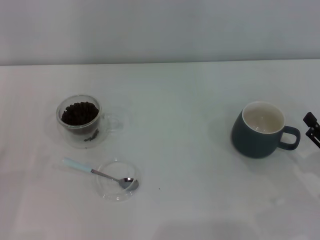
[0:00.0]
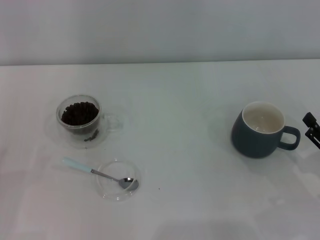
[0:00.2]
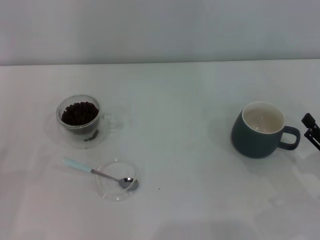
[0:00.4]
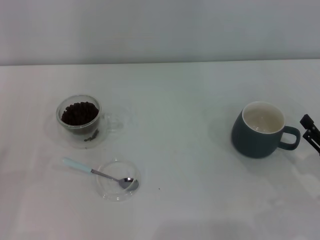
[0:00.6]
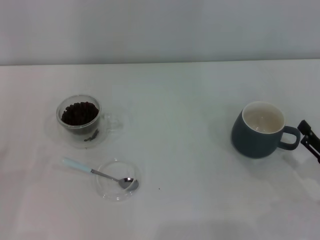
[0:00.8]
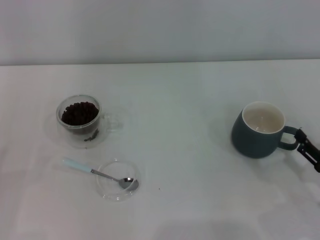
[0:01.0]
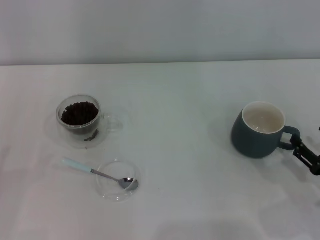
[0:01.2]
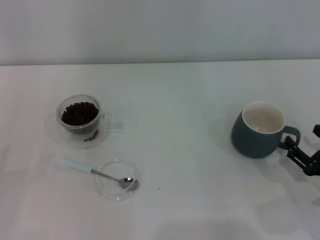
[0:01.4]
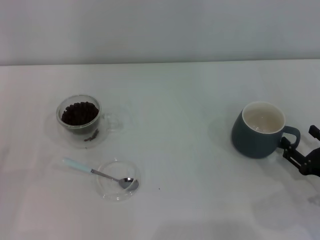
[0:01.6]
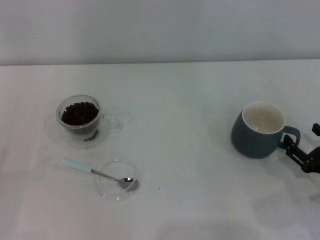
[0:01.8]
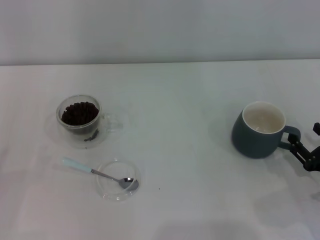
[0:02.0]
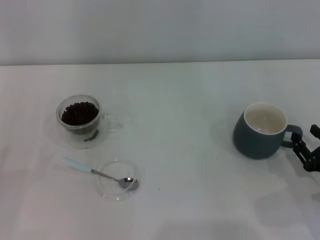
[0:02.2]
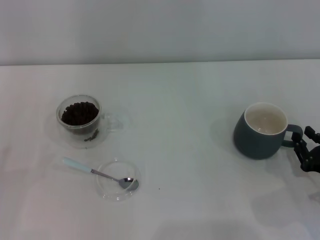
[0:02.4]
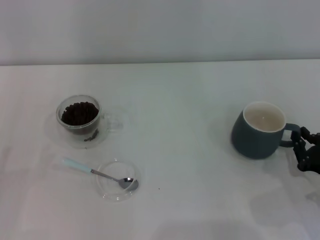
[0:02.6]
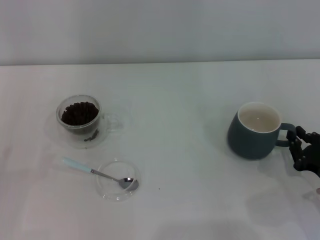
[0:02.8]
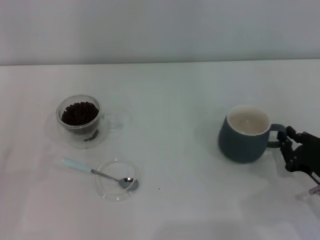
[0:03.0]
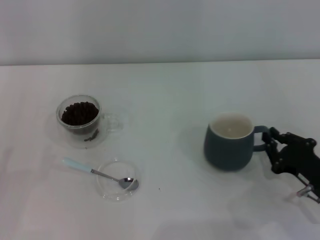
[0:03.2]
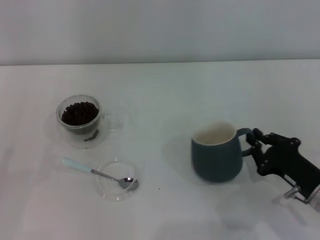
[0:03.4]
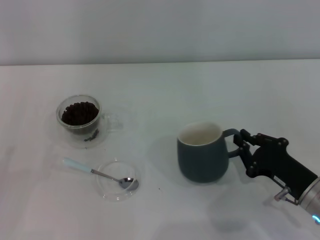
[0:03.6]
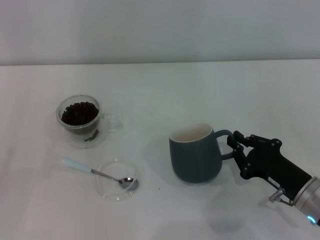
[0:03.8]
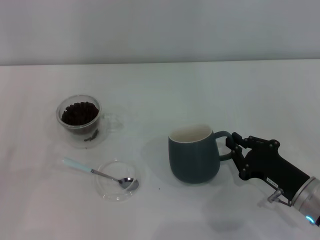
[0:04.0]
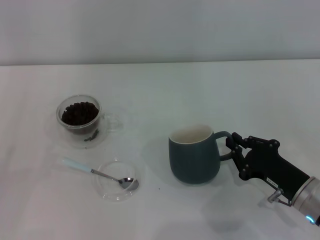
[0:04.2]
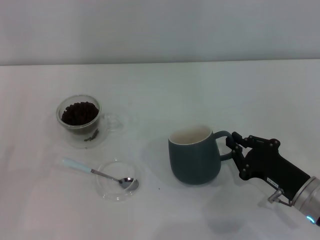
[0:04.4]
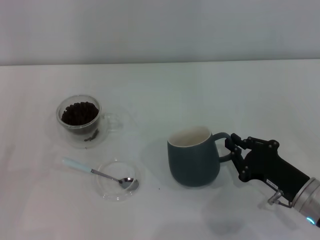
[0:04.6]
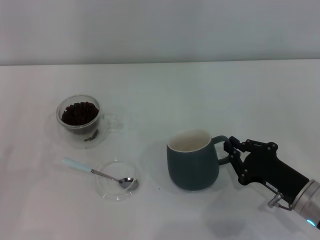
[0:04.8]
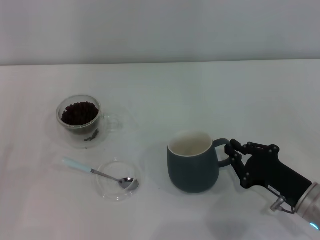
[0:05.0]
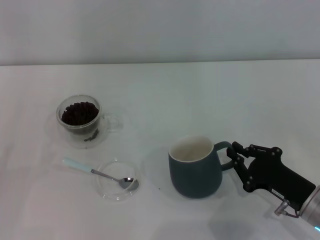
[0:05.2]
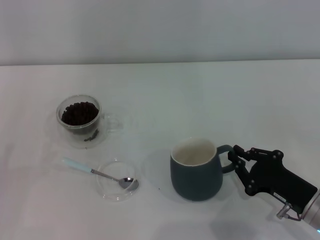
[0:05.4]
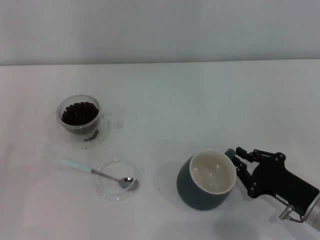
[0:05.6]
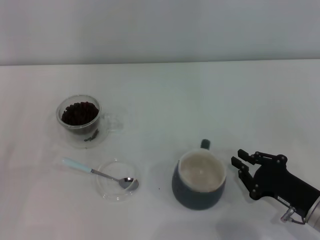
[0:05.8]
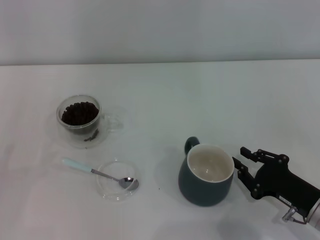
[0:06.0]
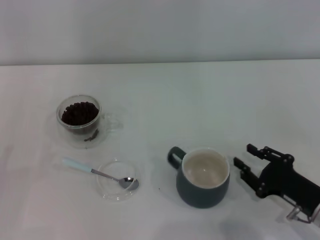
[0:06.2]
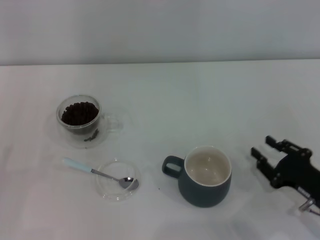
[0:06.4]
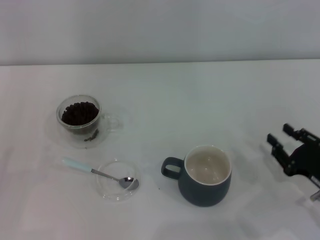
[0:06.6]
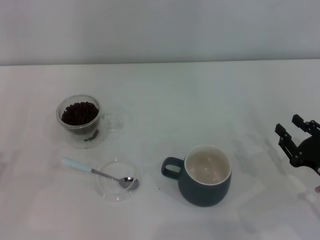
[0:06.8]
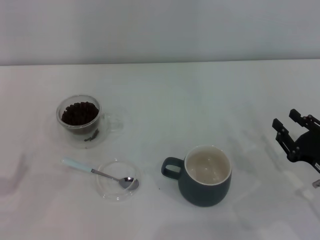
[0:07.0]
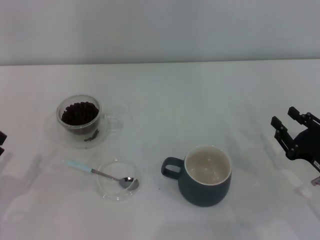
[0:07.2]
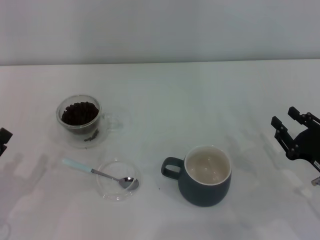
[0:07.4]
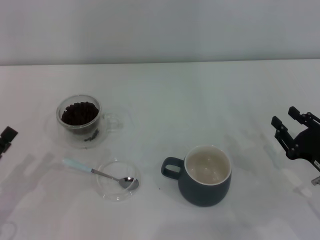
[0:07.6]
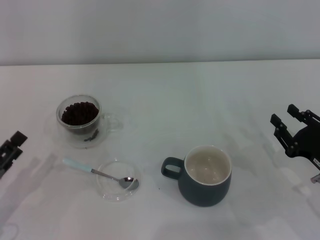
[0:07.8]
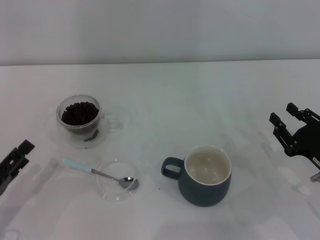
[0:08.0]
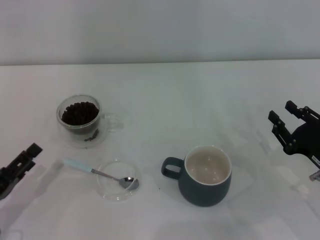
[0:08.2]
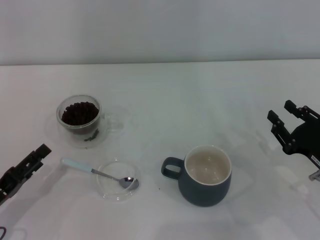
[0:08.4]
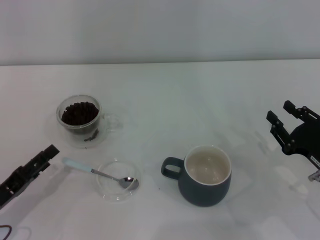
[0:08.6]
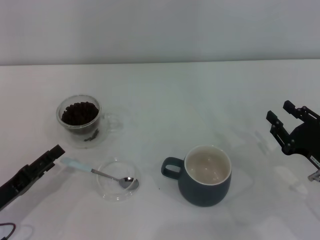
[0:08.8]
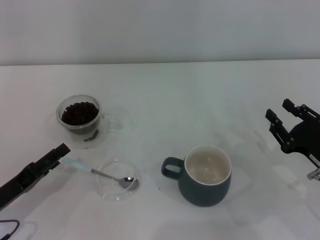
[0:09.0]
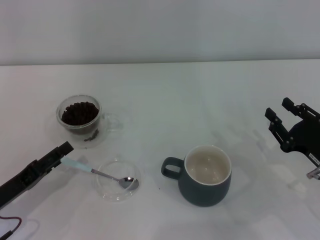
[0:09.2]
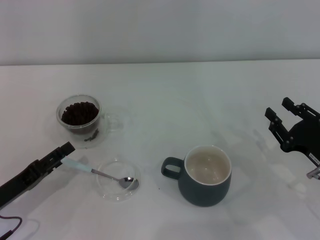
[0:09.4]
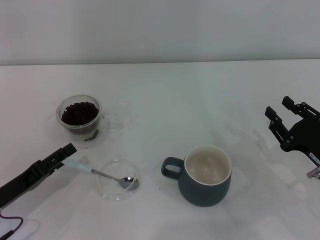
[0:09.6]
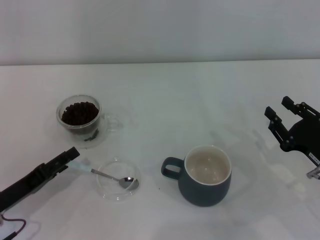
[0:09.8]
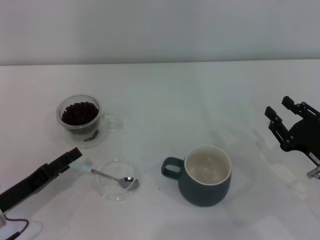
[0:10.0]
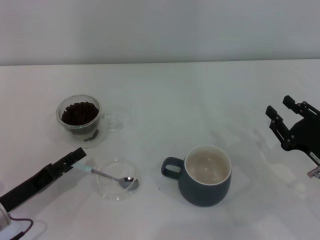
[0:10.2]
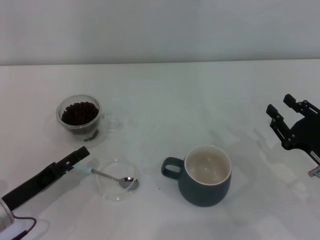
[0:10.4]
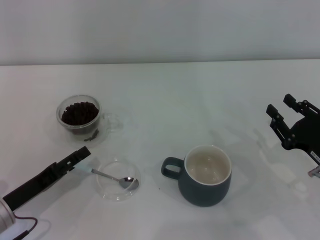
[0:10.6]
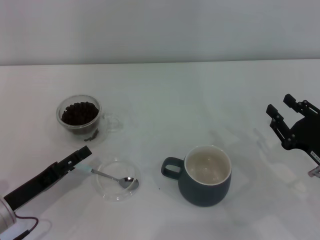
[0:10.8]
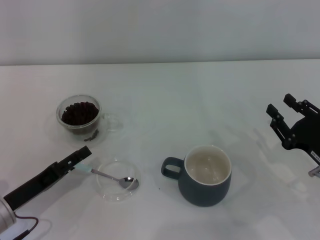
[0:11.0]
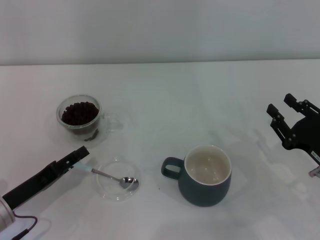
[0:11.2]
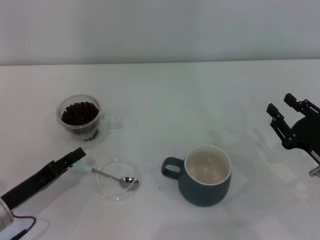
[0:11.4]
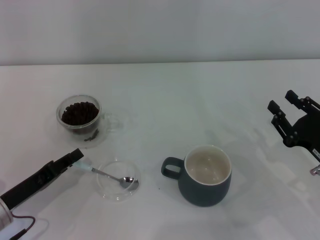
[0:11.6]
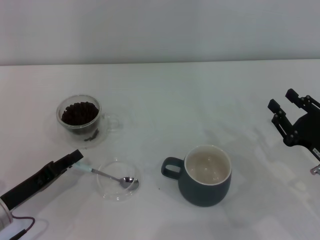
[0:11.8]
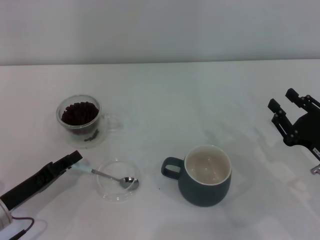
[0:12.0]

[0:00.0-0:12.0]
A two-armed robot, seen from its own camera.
Task of the whole recording: Use a blue spoon to take out the coffee beans from the glass and pour them into the gray cup.
Step, 0:00.0 to 0:06.6: Move the cup to the center of view with the left gripper.
0:00.0 to 0:01.6: The grippers make only small movements.
0:01.6 to 0:03.0: The right gripper closes.
0:03.0 to 0:04.4: The right gripper goes about 5 cm to the left.
0:04.4 to 0:06.0: The grippers move only a little.
0:07.6 to 0:09.0: The grippers make only small movements.
0:09.0 to 0:10.4: The grippers move only a little.
0:10.4 to 0:12.0: The left gripper closes its fingers.

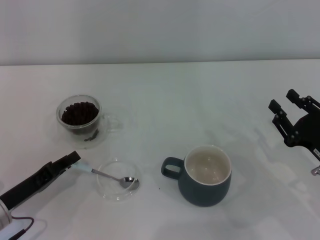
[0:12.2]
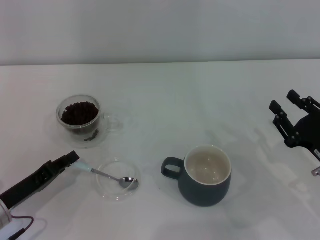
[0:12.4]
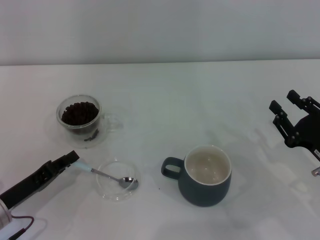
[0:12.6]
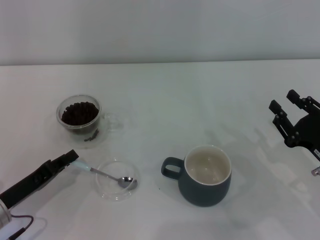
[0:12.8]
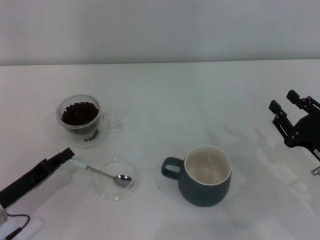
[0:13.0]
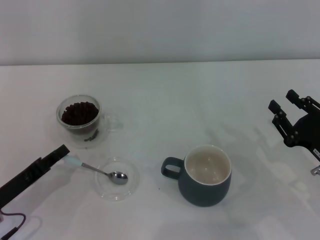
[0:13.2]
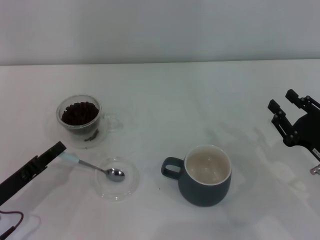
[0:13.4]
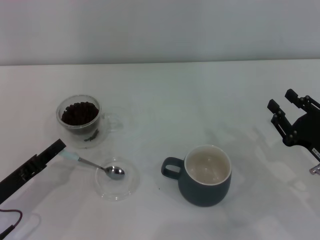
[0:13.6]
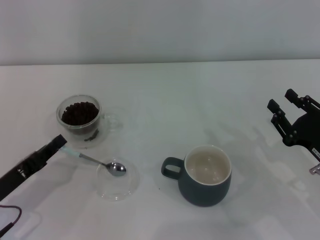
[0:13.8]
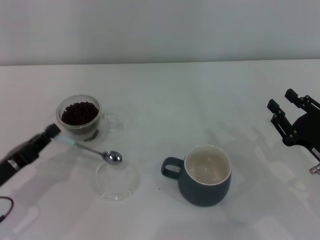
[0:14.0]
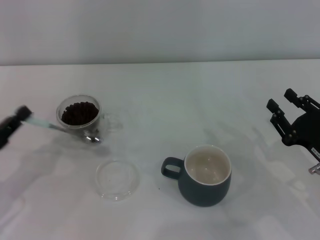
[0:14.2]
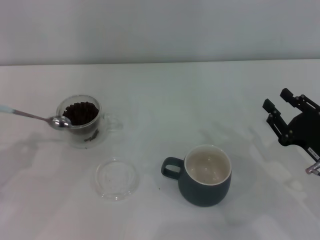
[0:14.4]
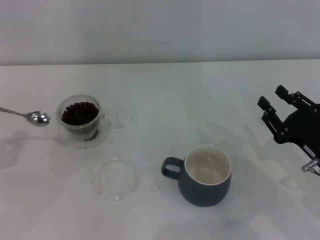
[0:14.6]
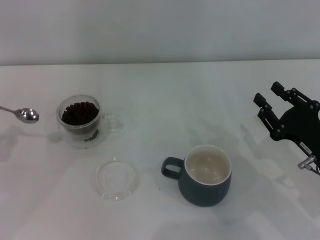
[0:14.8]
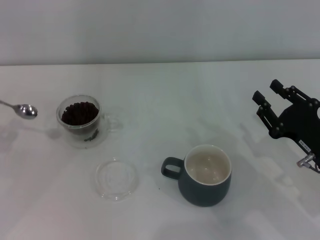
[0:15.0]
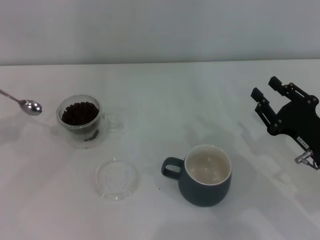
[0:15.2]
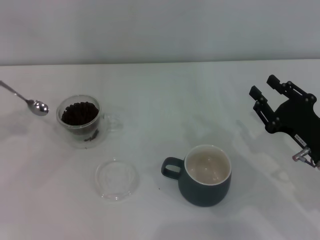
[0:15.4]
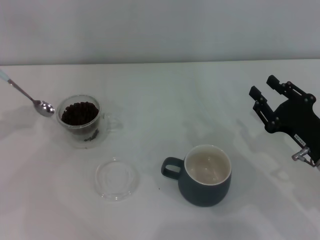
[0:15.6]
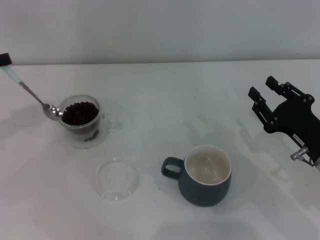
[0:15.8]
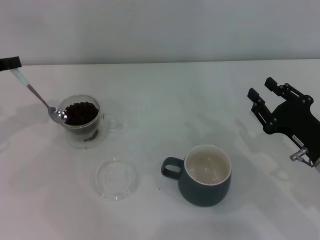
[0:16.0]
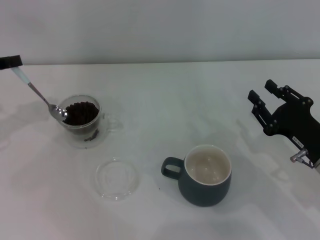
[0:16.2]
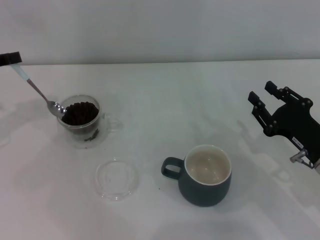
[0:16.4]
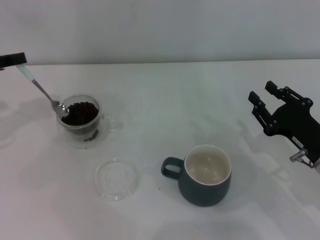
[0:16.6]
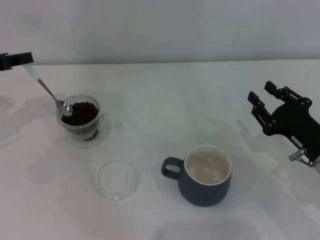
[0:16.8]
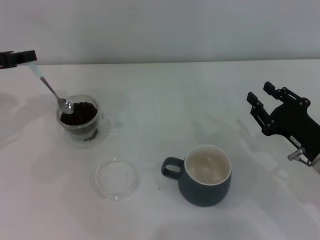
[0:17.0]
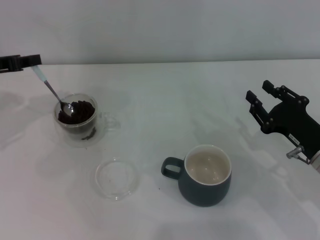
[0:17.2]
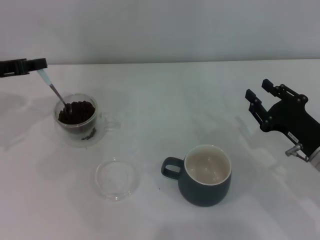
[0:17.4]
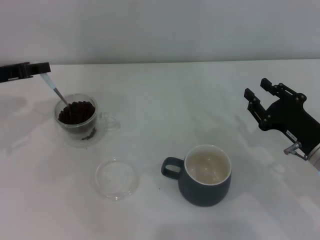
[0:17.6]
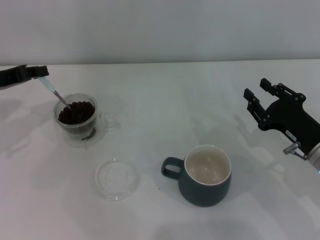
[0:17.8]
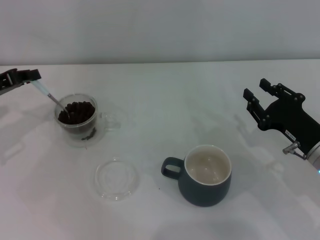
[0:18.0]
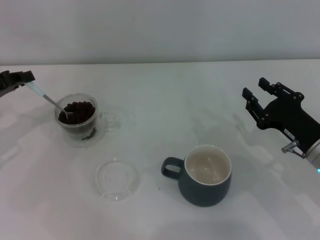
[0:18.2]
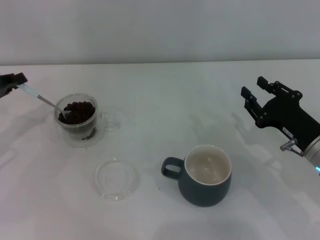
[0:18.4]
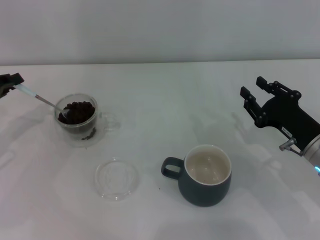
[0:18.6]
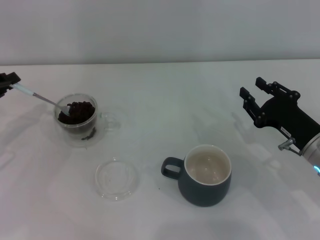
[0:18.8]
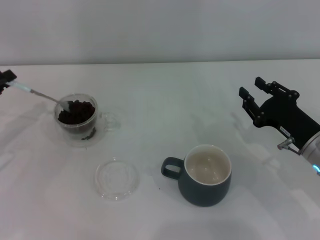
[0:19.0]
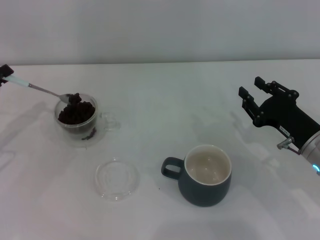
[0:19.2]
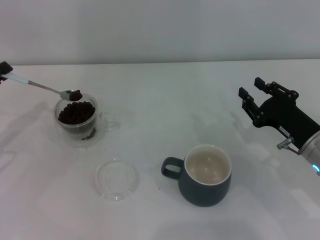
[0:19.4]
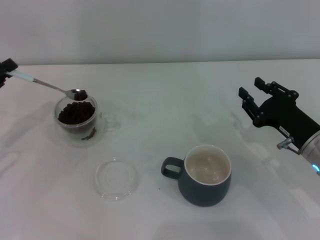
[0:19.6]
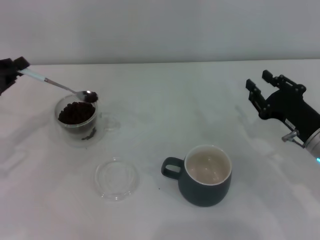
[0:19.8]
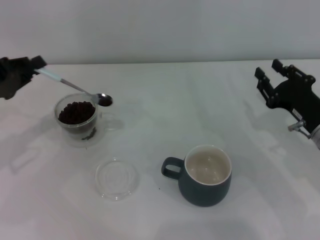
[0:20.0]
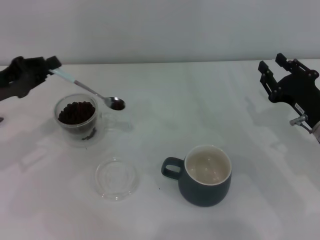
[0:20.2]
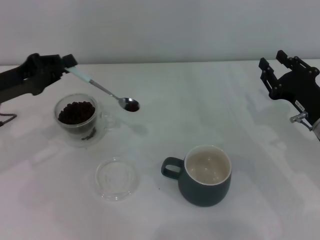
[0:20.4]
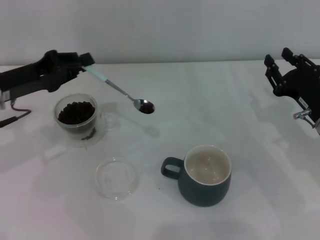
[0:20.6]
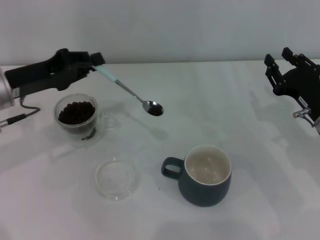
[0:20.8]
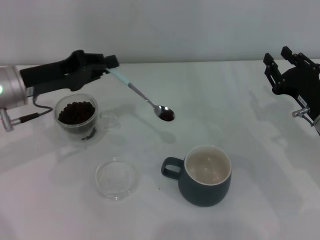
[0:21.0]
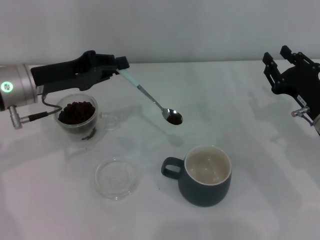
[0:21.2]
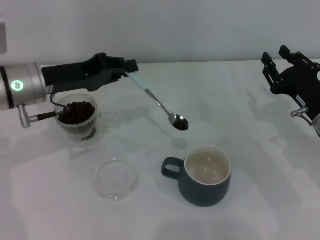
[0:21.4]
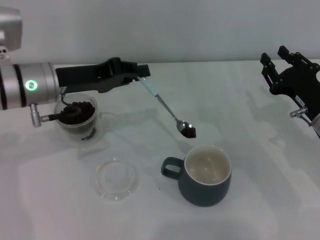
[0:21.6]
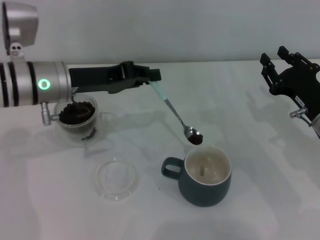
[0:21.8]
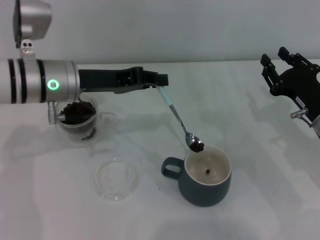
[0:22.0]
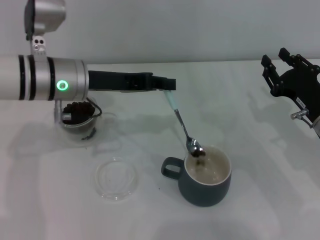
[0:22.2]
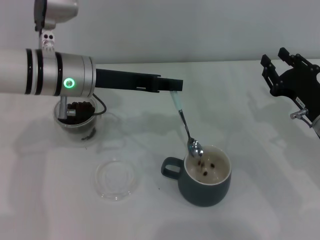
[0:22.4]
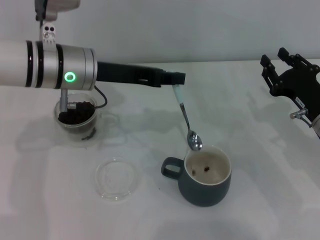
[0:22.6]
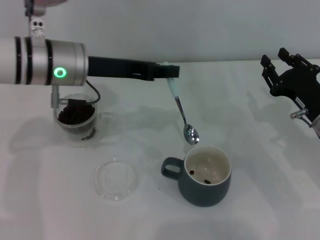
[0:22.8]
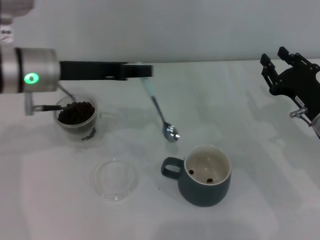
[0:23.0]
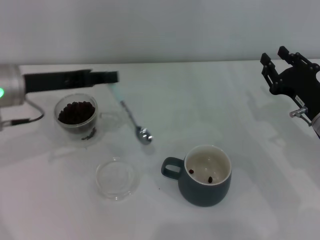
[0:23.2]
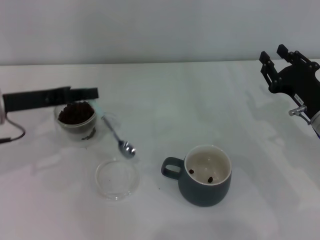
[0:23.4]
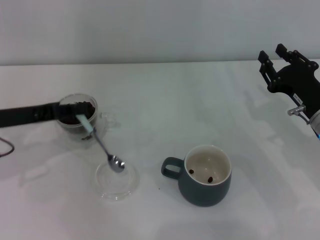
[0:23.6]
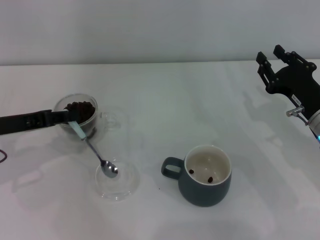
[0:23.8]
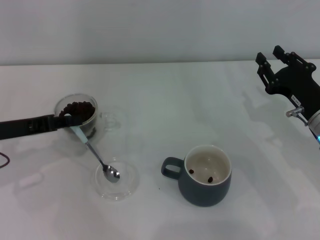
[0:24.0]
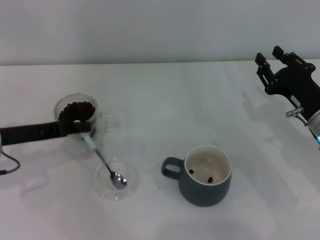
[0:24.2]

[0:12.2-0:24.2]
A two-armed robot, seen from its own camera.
Task of the whole recording: Use a blue spoon to take out the coffee beans from the glass and pour them into the gray cup.
0:12.2 to 0:13.8: The grippers stay close to where they were, moving slightly.
0:13.8 to 0:15.2: The left gripper shifts approximately 20 cm upward, to the left and forward.
0:15.2 to 0:16.6: The left gripper travels forward and to the right by about 10 cm.
0:16.6 to 0:18.2: The left gripper ends up about 5 cm from where it was.
0:19.8 to 0:21.2: The left gripper goes about 10 cm to the right.
0:21.2 to 0:22.6: The left gripper heads to the right, covering roughly 10 cm.
0:22.6 to 0:24.2: The left gripper moves to the left, downward and backward, about 15 cm.
